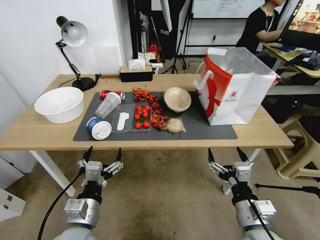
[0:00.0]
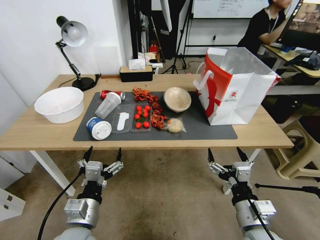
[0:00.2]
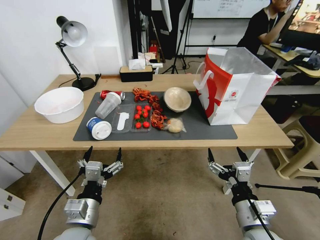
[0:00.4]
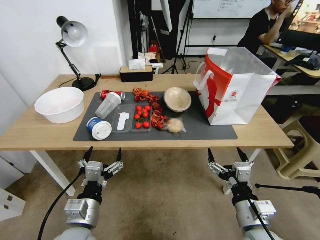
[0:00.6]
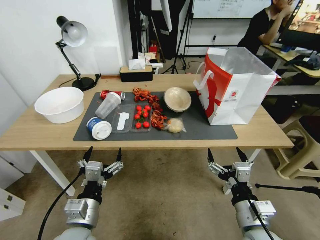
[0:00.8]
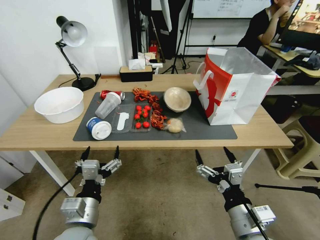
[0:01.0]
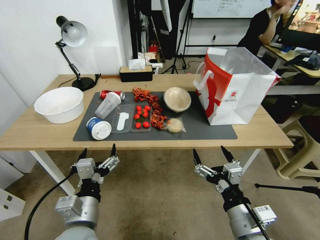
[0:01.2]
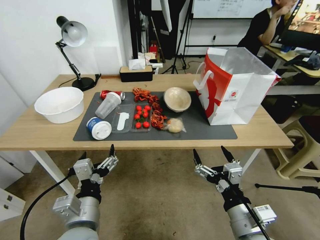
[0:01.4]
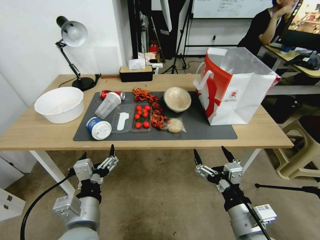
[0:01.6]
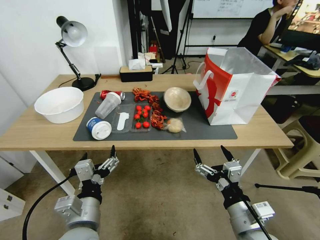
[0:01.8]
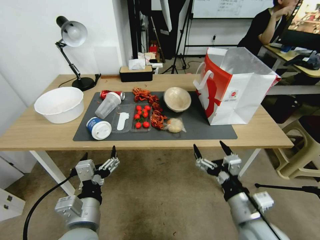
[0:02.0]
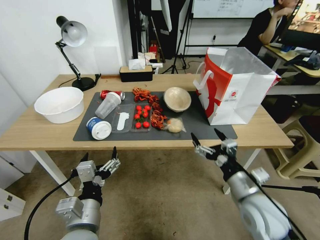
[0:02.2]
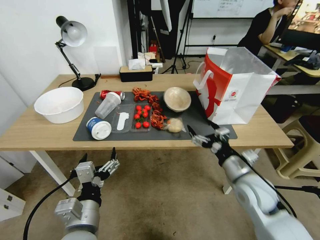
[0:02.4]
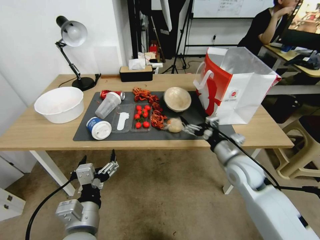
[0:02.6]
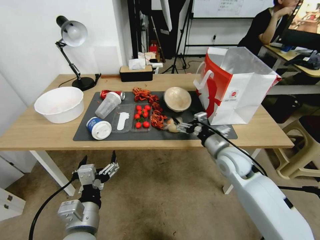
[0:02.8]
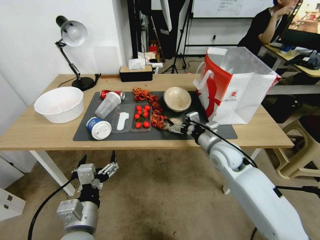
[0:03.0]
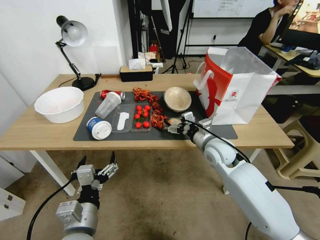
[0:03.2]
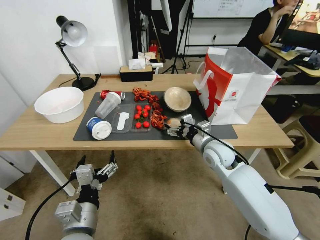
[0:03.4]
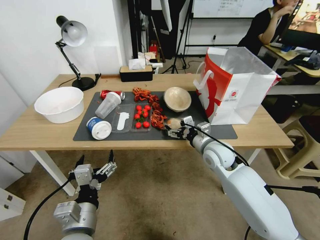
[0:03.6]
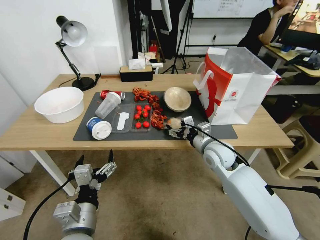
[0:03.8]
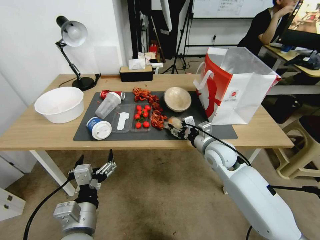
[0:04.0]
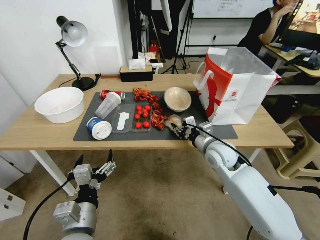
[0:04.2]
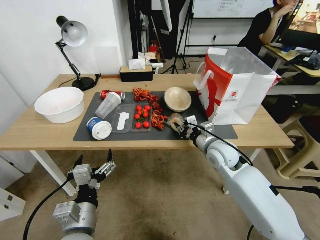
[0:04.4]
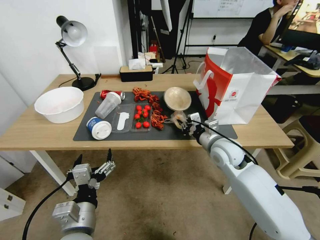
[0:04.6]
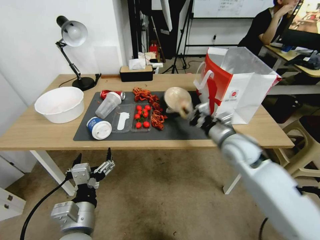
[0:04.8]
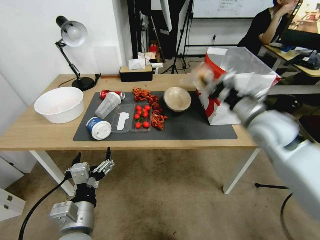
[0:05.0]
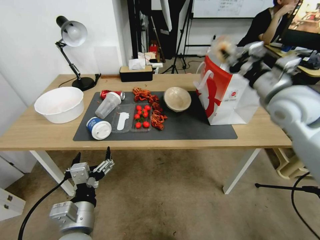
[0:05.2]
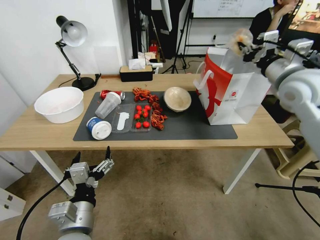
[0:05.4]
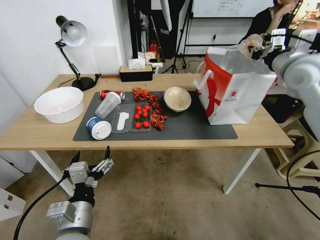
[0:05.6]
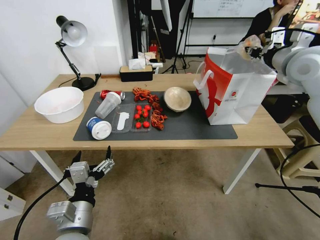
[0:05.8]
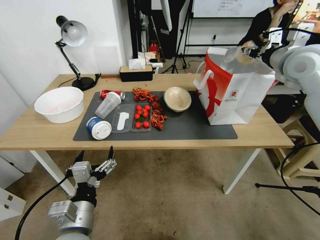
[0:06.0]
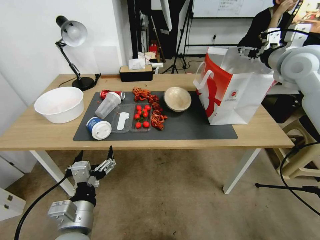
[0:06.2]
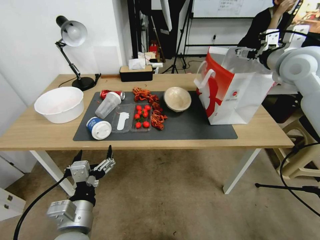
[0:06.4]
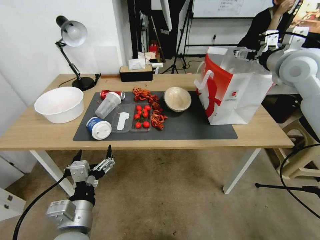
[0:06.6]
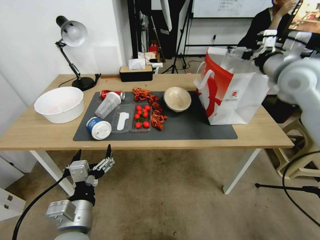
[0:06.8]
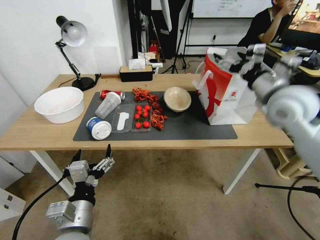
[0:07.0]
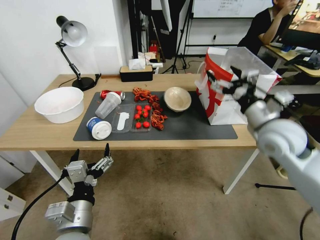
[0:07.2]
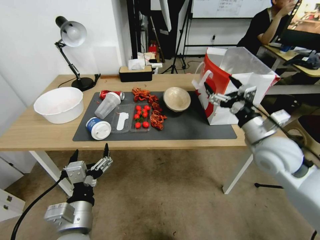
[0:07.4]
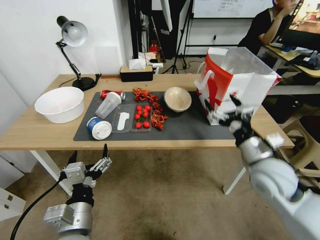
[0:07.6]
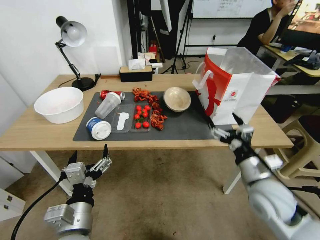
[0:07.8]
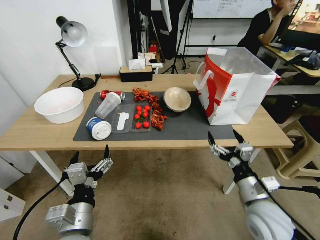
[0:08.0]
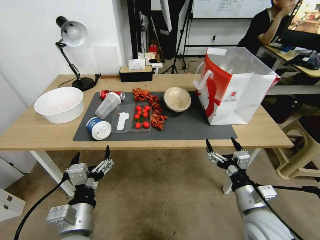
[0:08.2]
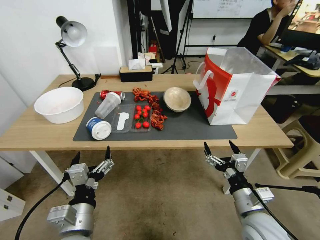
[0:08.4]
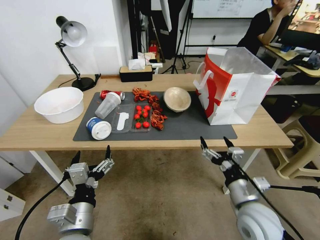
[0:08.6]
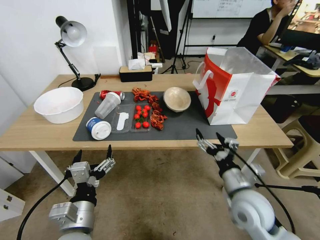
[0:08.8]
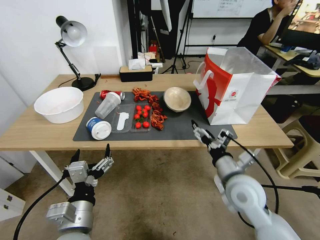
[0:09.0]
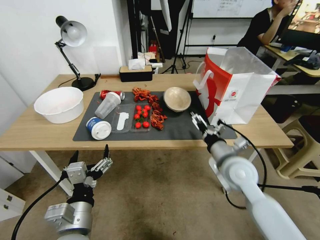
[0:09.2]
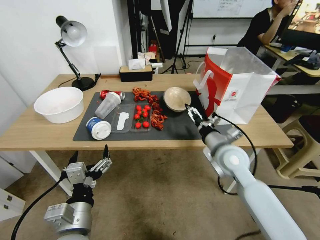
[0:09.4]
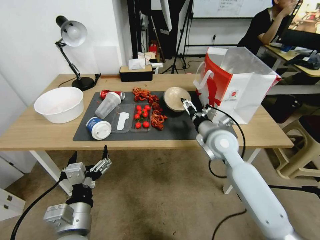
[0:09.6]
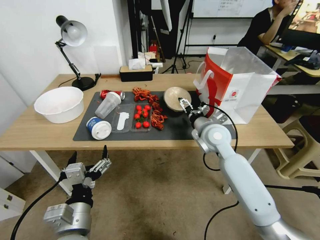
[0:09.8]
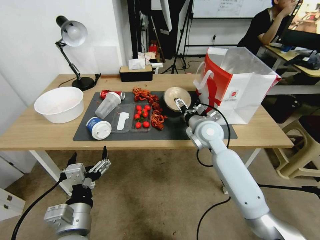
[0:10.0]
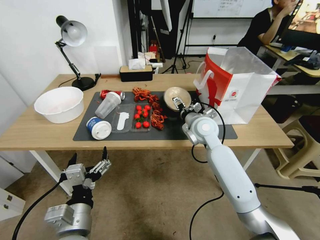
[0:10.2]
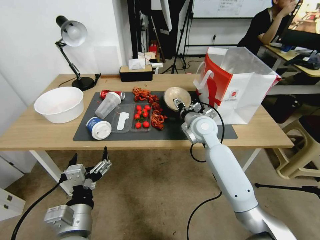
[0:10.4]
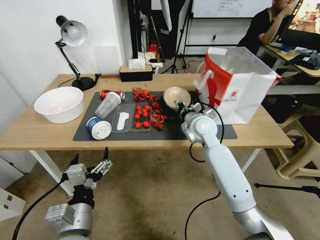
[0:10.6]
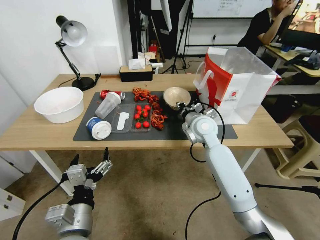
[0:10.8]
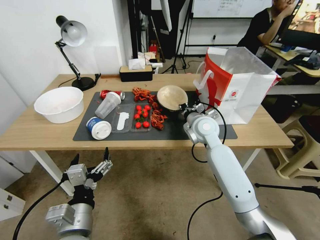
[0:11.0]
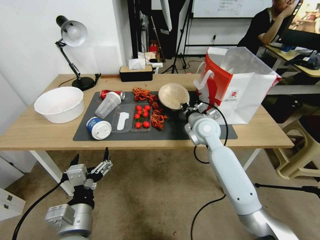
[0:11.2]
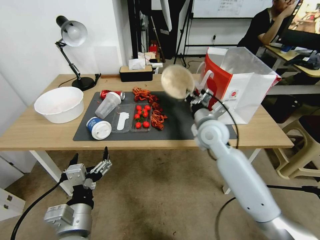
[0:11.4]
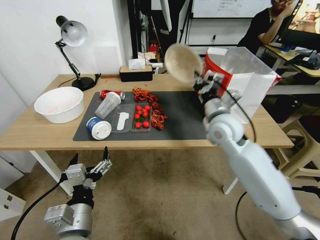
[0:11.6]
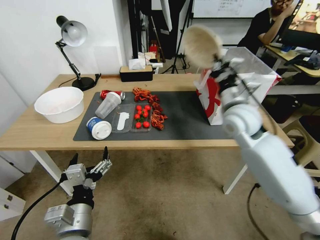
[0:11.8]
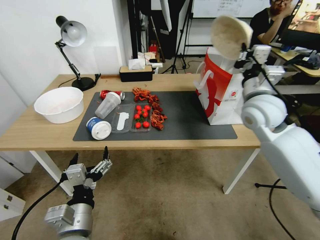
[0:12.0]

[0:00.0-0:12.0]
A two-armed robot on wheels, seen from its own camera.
0:01.6 to 0:03.0: The right gripper goes about 25 cm forward.
0:03.0 to 0:04.4: The right gripper closes up.
0:04.4 to 0:06.0: The right gripper is displaced upward and to the right by approximately 30 cm.
0:06.0 to 0:07.6: The right gripper moves downward and backward, about 30 cm, and opens up.
0:07.6 to 0:09.0: The right gripper moves to the left and downward, some 10 cm, and reaches roughly 10 cm backward, then returns.
0:09.0 to 0:10.4: The right gripper heads forward and to the left, covering roughly 20 cm.
0:10.4 to 0:12.0: The right gripper is displaced upward and to the right by roughly 15 cm, and closes up.

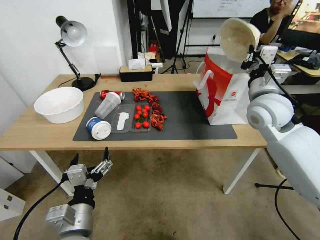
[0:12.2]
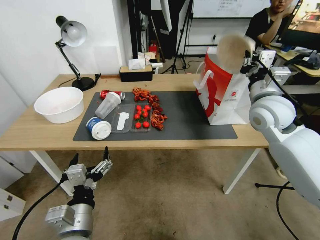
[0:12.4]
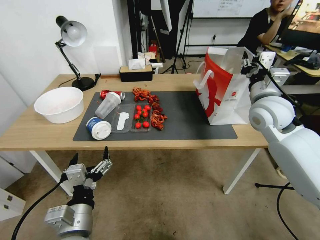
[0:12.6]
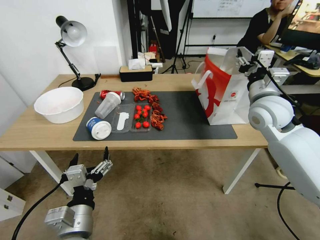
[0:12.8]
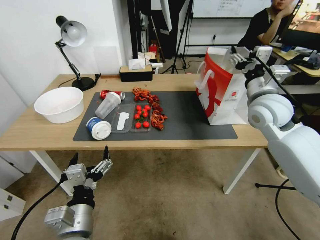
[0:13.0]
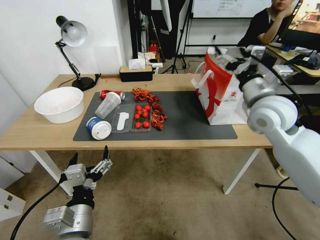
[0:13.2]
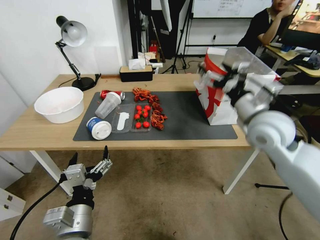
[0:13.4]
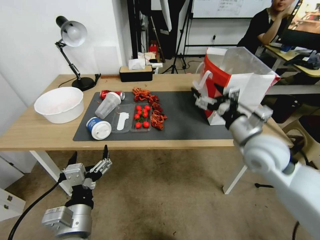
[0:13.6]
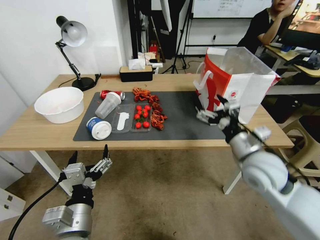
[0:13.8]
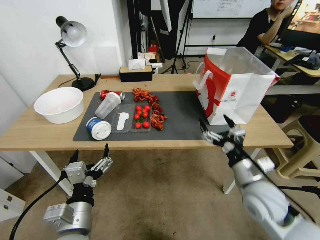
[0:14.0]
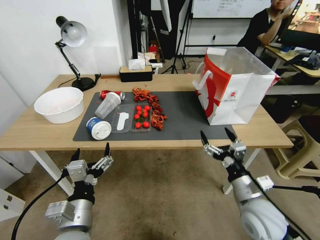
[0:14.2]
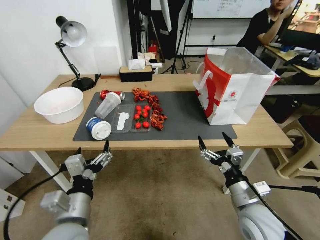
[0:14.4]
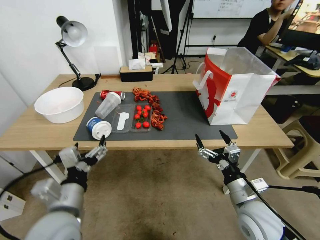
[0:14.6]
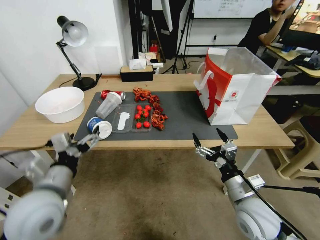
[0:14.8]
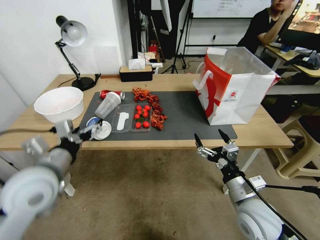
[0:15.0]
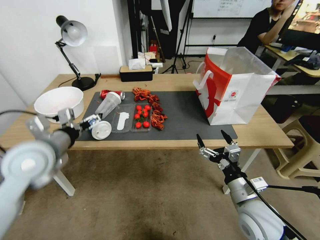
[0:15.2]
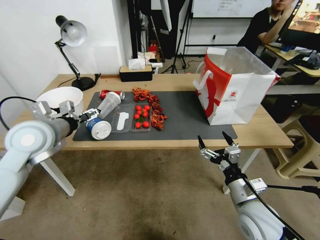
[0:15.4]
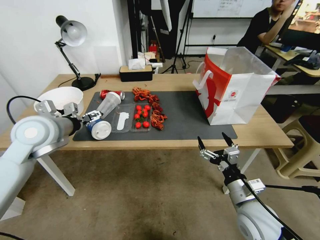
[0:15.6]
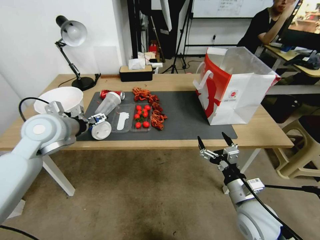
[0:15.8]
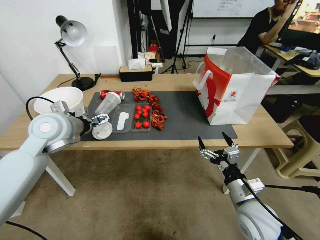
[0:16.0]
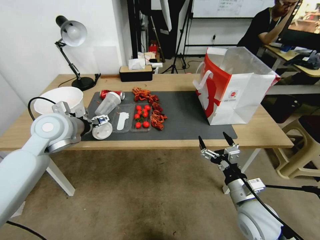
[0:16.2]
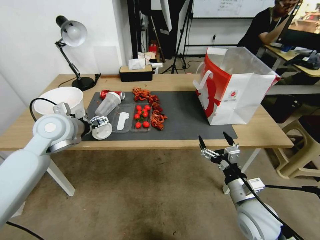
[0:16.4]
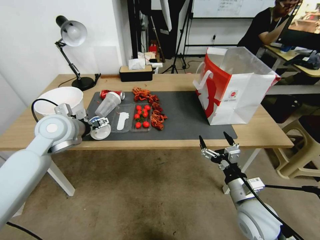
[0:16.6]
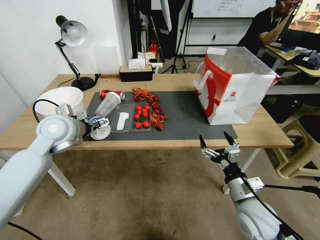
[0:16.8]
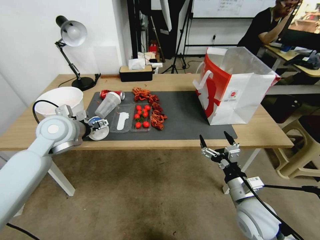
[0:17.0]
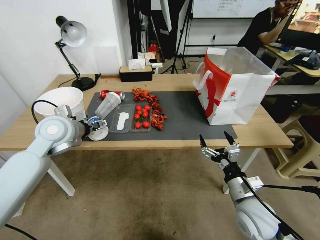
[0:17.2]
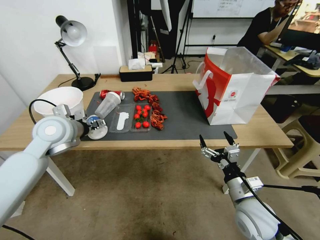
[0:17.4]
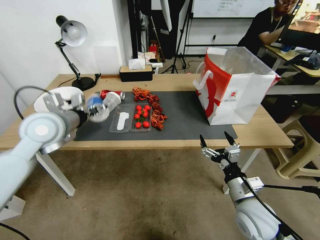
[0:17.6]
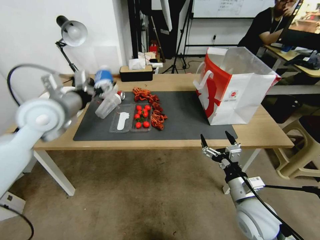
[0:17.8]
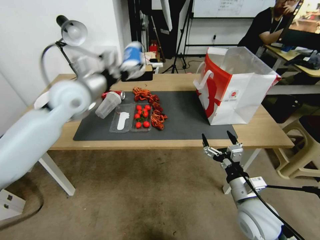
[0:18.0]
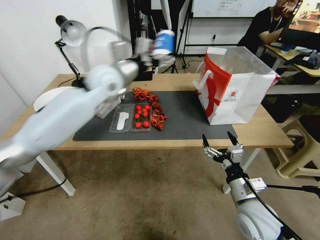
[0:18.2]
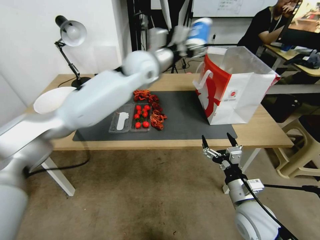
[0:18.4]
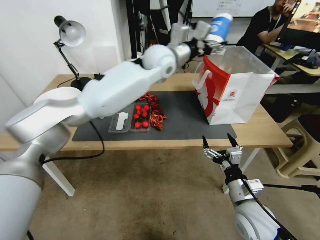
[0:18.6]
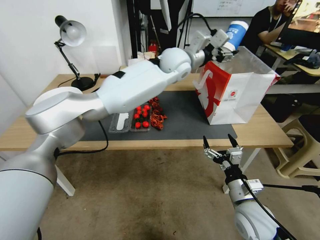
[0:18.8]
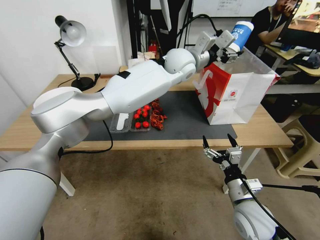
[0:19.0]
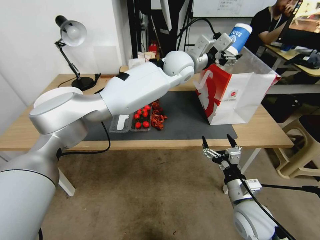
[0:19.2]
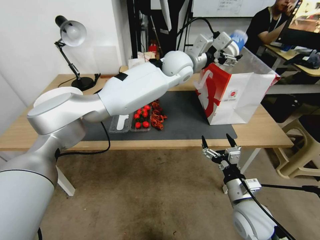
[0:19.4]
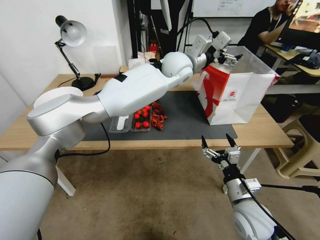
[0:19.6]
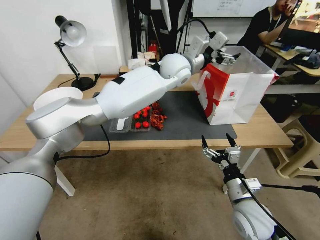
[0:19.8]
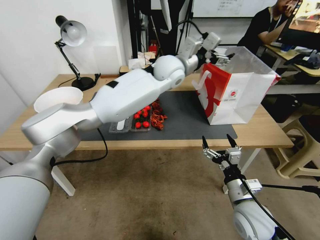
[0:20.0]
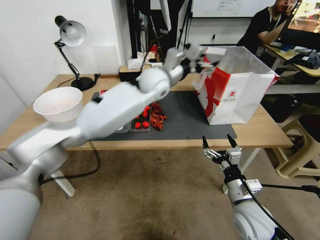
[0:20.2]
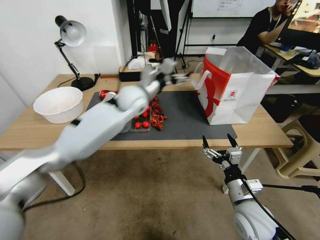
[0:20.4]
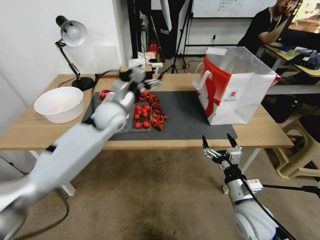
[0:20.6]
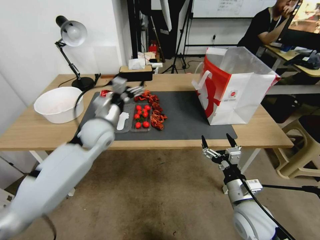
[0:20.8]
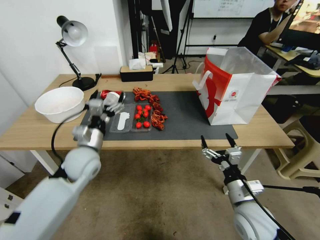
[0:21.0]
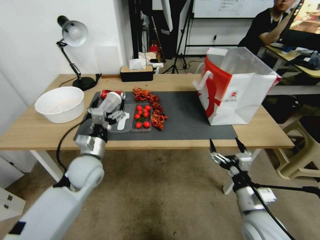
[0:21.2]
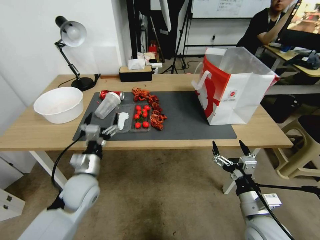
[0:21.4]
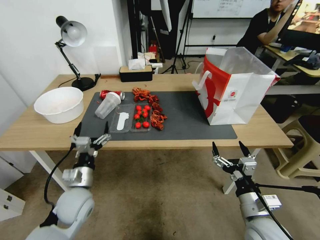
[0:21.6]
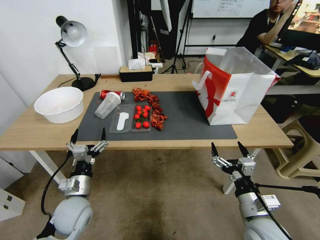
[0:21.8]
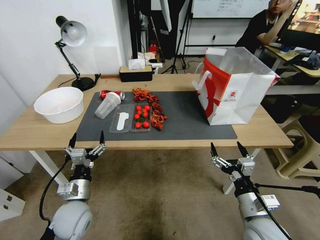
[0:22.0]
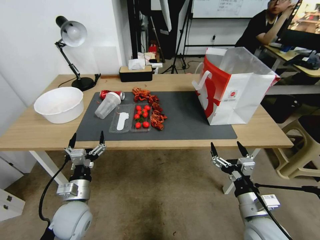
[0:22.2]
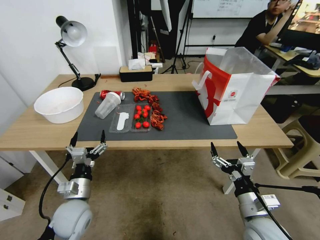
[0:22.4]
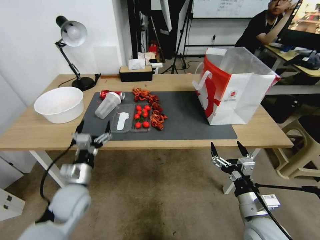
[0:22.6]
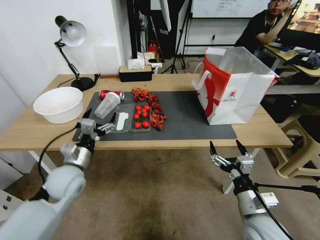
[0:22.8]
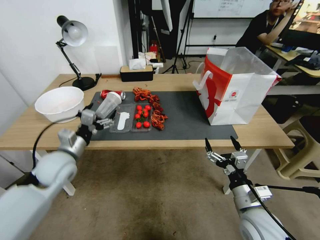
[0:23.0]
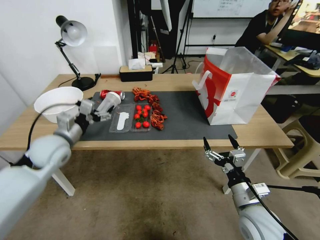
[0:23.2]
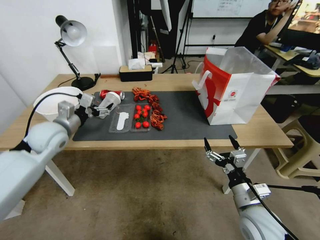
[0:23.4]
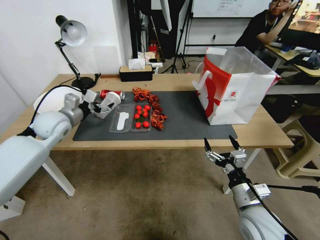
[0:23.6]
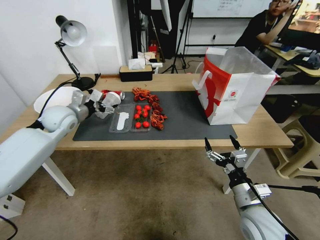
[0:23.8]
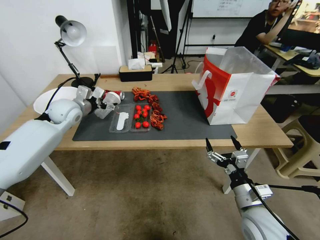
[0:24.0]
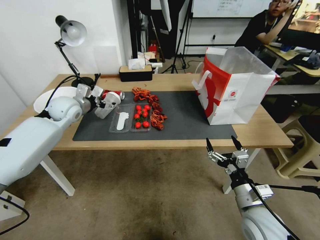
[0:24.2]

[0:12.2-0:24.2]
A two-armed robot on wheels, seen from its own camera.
0:12.2 to 0:13.8: The right gripper moves backward and downward, about 20 cm, and opens.
0:13.8 to 0:15.2: The right gripper goes some 10 cm downward and backward, while the left gripper is displaced forward, upward and to the left by about 25 cm.
0:15.2 to 0:16.6: The left gripper goes about 10 cm forward.
0:16.6 to 0:18.2: The left gripper moves to the right, upward and forward, about 20 cm, and closes up.
0:18.2 to 0:19.8: The left gripper is displaced to the right by about 20 cm, and opens.
0:19.8 to 0:21.2: The left gripper travels to the left, downward and backward by about 40 cm.
0:21.2 to 0:22.6: The left gripper travels backward by approximately 5 cm.
0:22.6 to 0:24.2: The left gripper heads forward and upward, covering roughly 30 cm.
